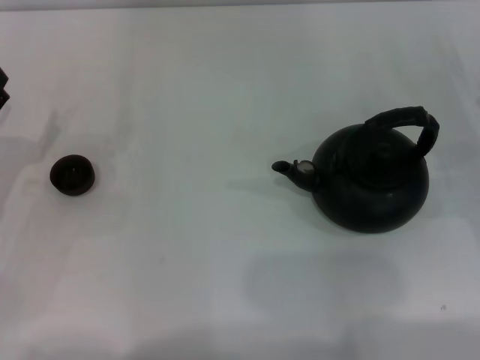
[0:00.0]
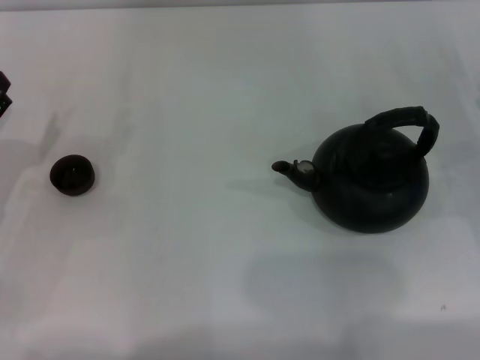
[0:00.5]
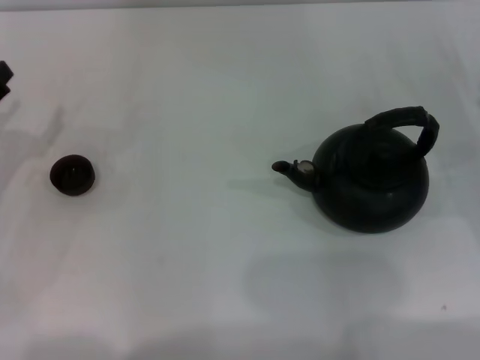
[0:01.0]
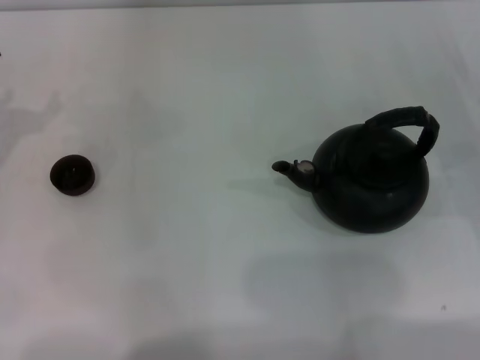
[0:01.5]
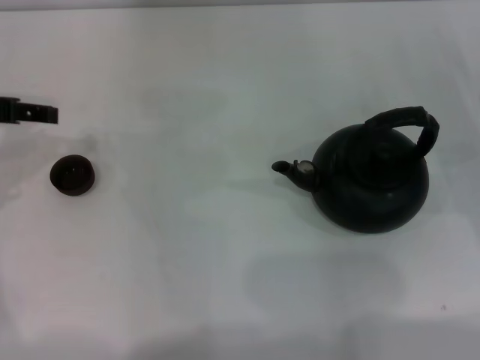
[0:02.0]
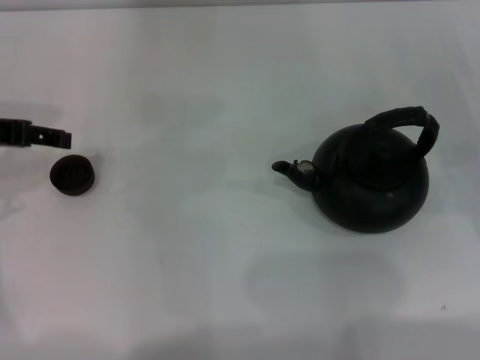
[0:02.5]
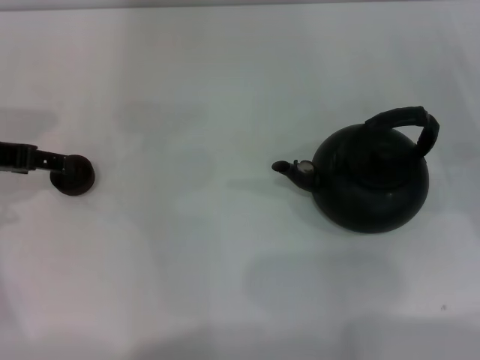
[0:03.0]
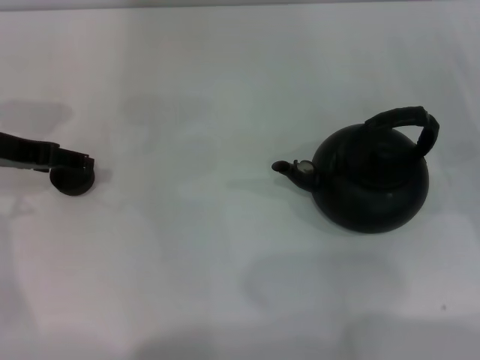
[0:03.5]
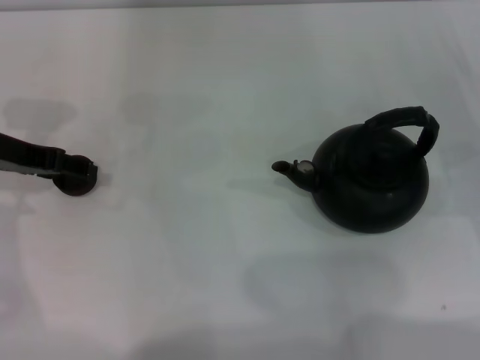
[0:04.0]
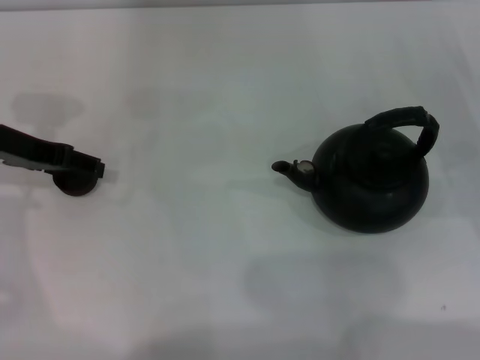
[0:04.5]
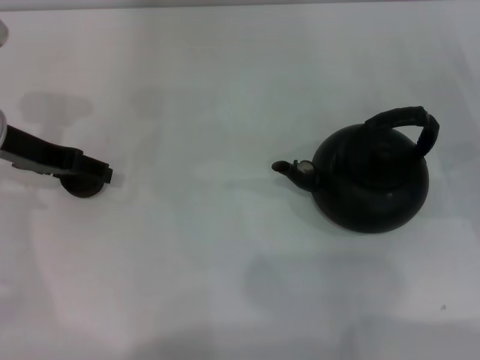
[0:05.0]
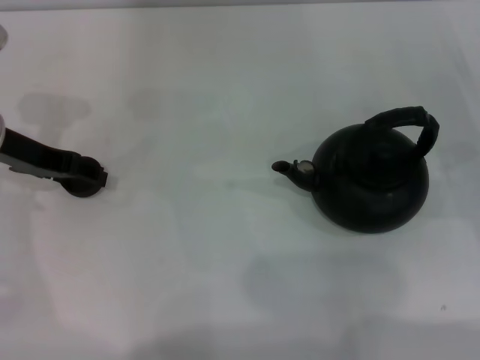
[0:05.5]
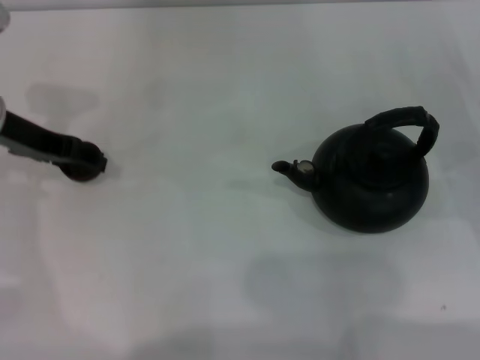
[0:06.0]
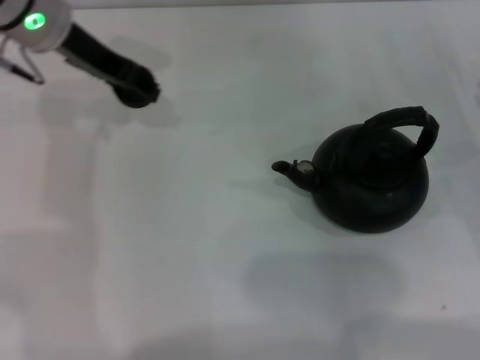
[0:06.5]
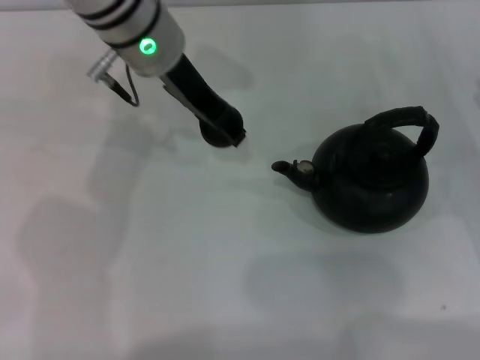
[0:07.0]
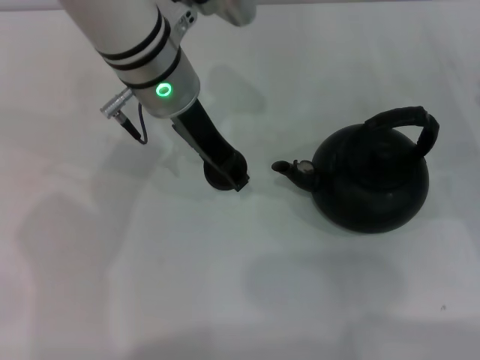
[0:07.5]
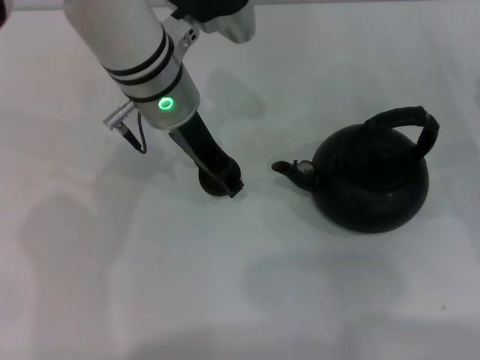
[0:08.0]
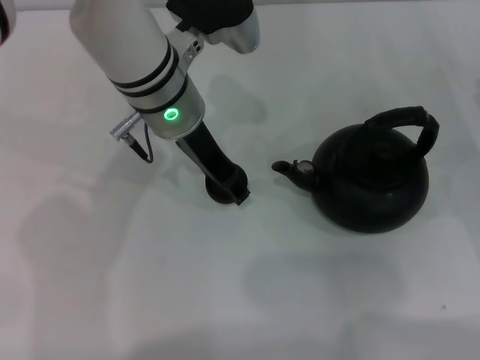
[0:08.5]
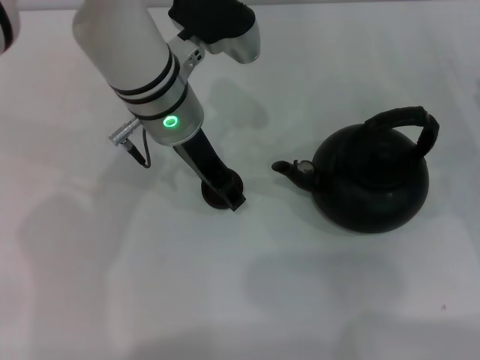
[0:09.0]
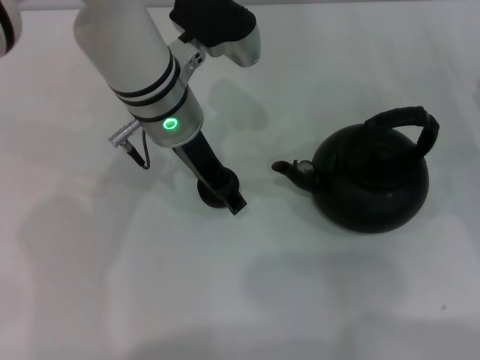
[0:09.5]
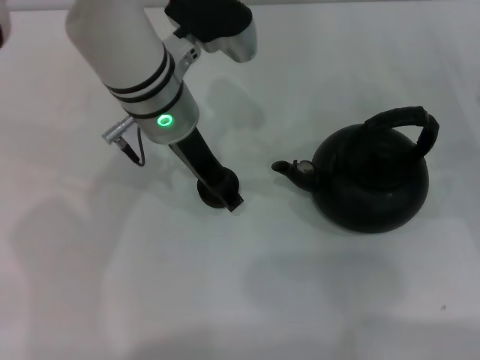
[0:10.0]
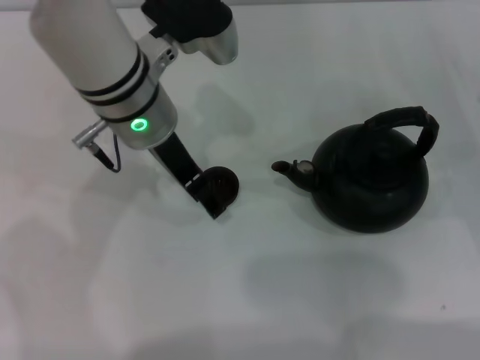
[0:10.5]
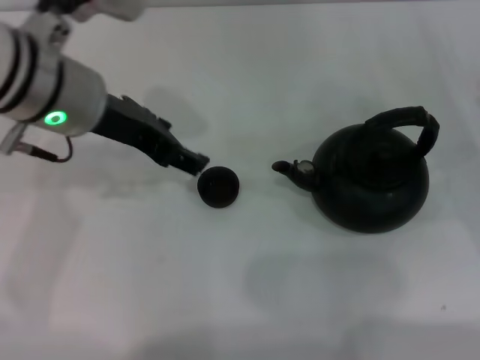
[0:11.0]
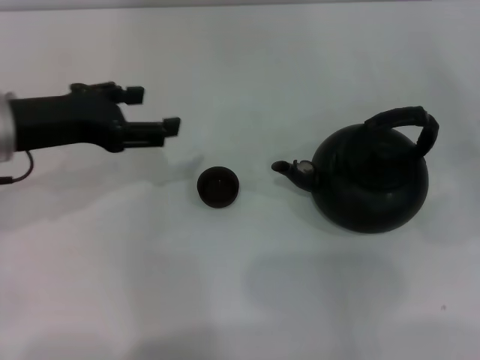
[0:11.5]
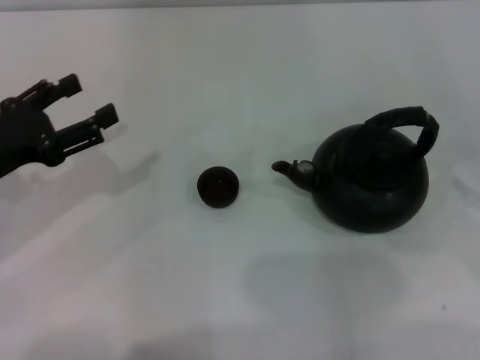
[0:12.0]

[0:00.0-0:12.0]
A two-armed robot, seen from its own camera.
Task of the whole recording: Grasp the handle of the teapot with one hand and pour tea into the teacup.
Step, 0:00.0 to 0:06.0: Pick up the teacup with the left gripper.
Step, 0:06.5 to 0:11.0: Place the teacup in the center of view with the left gripper.
0:00.0 to 0:02.0: The left gripper shifts roughly 15 cm upward and forward.
0:02.0 to 0:04.0: The left gripper ends up approximately 5 cm from where it was.
0:04.0 to 0:06.0: The left gripper closes up.
0:06.0 to 0:08.0: The left gripper shifts some 20 cm to the right.
0:08.0 to 0:10.0: The left gripper opens its fingers.
0:10.0 to 0:12.0: The left gripper travels to the left and backward by about 25 cm, while the right gripper moves upward and backward, roughly 10 cm.

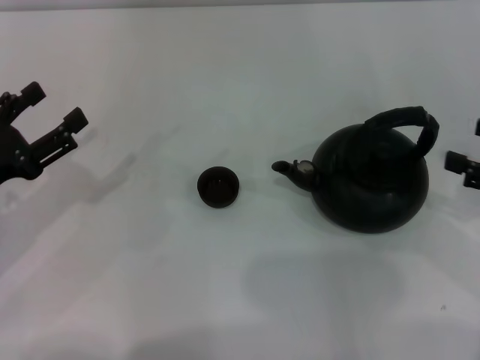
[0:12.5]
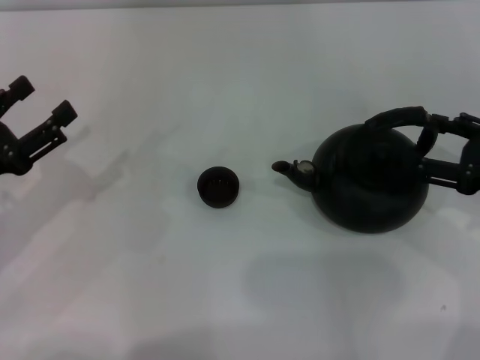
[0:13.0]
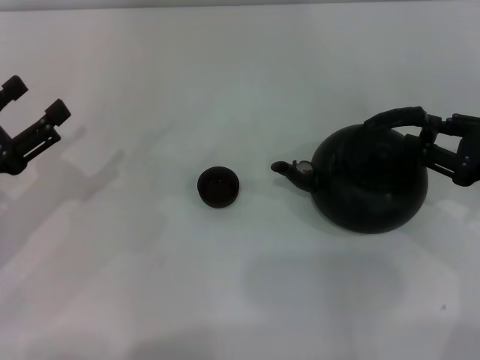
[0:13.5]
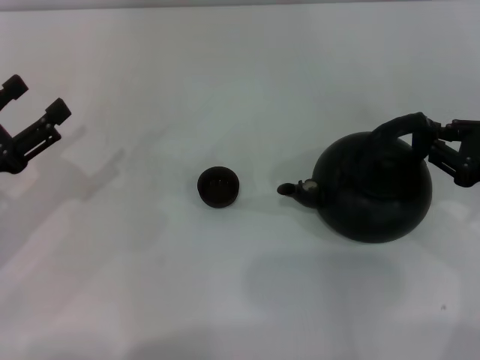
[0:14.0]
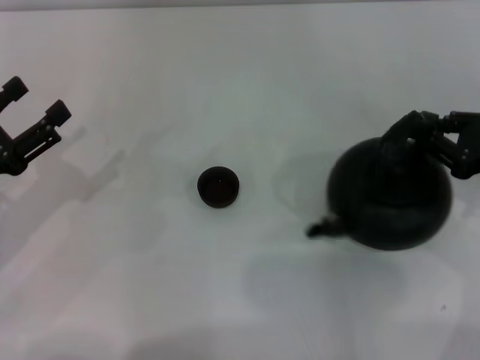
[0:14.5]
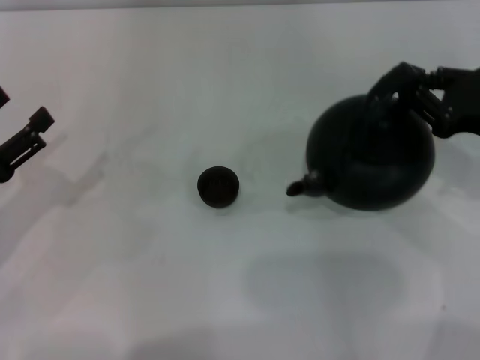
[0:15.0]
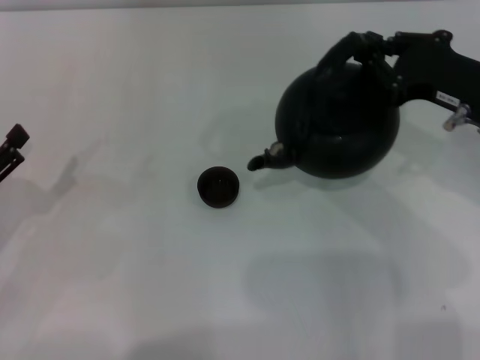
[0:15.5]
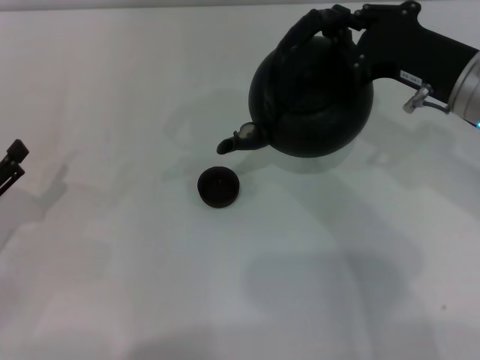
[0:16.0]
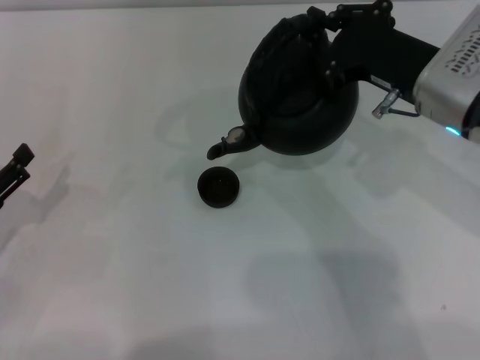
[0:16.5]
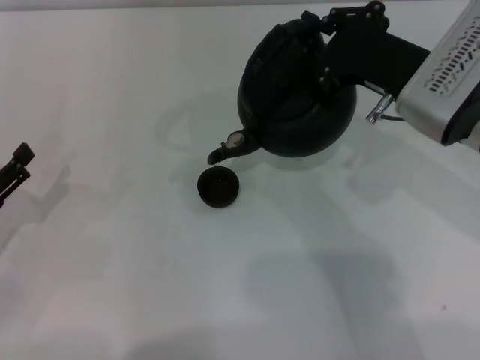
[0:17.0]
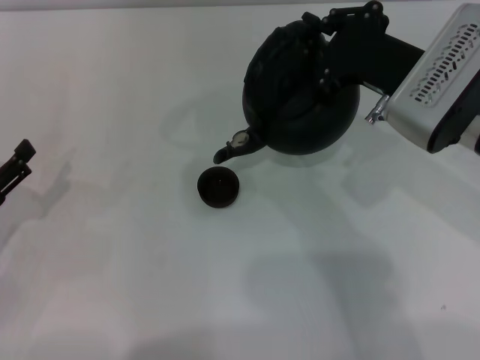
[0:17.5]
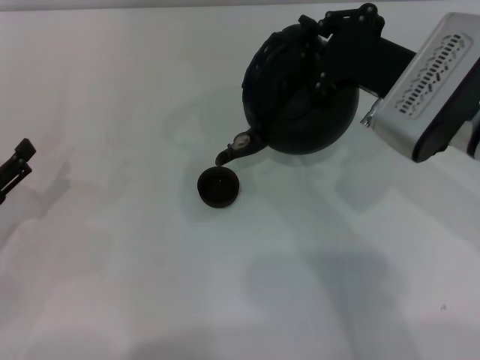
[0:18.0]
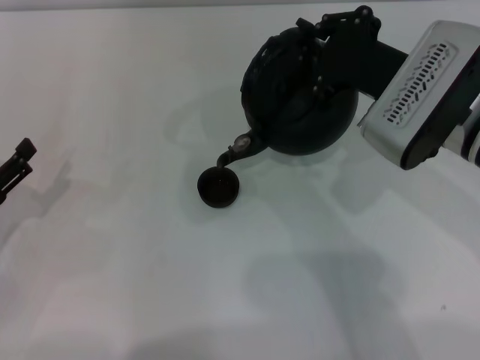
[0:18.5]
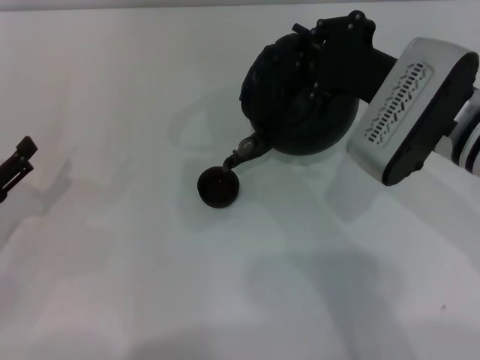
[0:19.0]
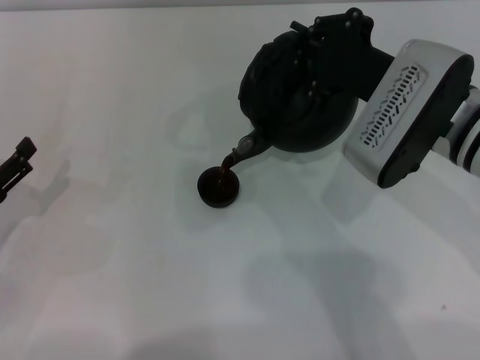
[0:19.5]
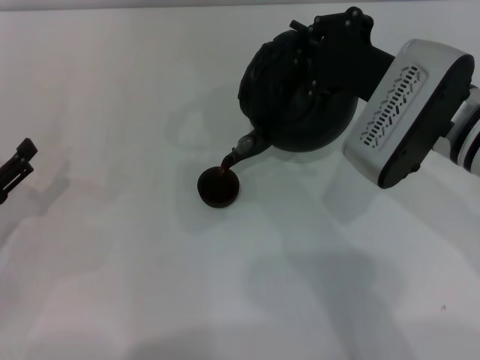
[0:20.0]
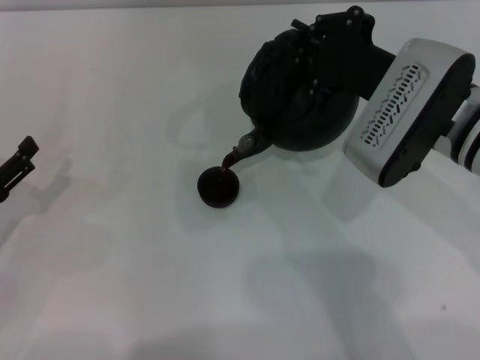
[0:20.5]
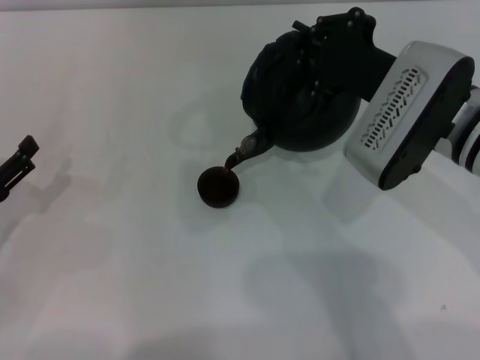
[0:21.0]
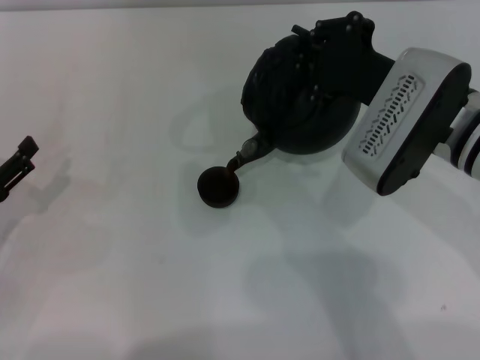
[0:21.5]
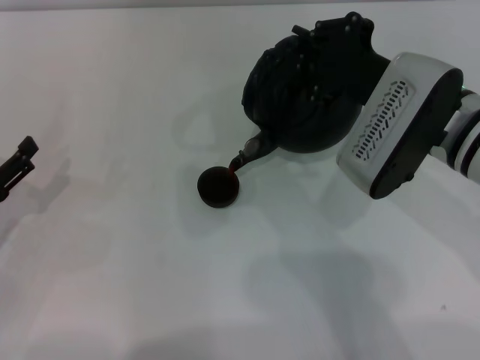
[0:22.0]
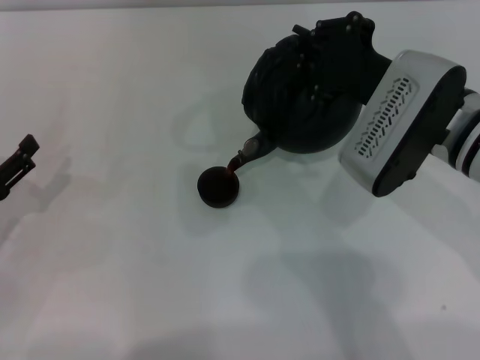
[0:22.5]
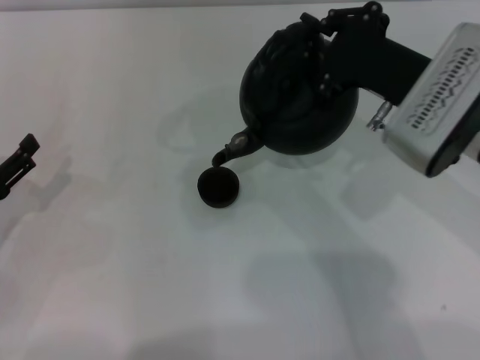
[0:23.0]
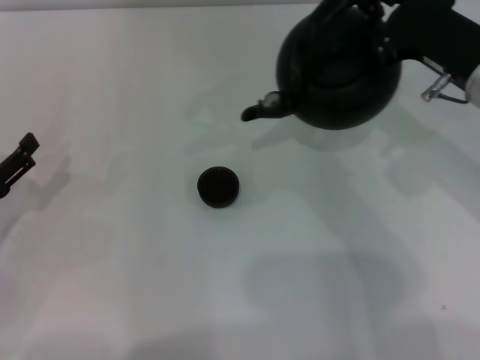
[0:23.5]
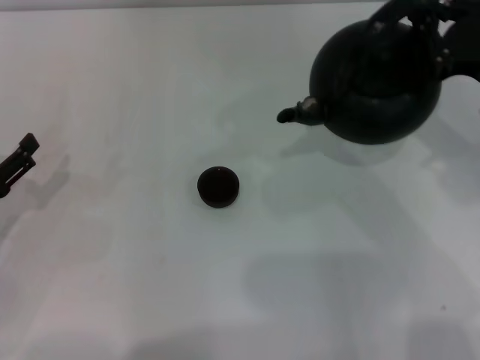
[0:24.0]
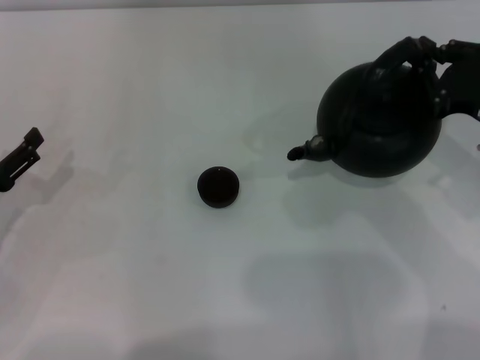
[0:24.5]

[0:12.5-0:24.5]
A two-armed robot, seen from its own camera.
Task of the whole recording: Grasp the handle of the teapot with one hand and pour tea into the teacup.
Step, 0:12.5 to 0:15.0: Pick up the teapot with the right gripper.
Step, 0:15.5 to 0:23.0: Pour tea into the teacup with the right gripper.
0:12.5 to 0:14.5: The right gripper shifts by roughly 5 cm, and closes.
0:14.5 to 0:16.5: The left gripper shifts by roughly 5 cm. Meanwhile the right gripper moves to the left, some 15 cm.
0:16.5 to 0:18.5: The grippers make only small movements.
0:18.5 to 0:20.5: The grippers make only small movements.
0:20.5 to 0:22.5: Both grippers stay put.
0:22.5 to 0:24.5: The right gripper is displaced to the right by about 10 cm.

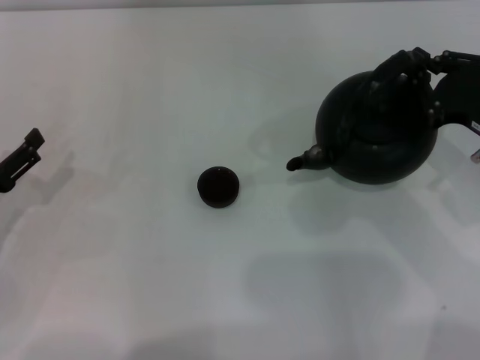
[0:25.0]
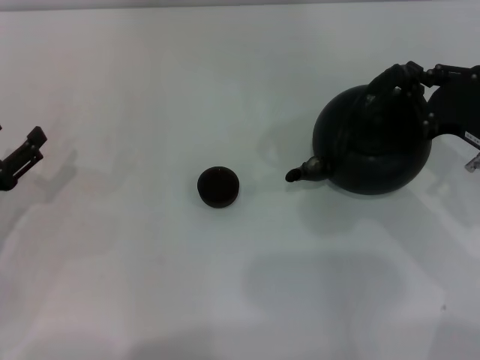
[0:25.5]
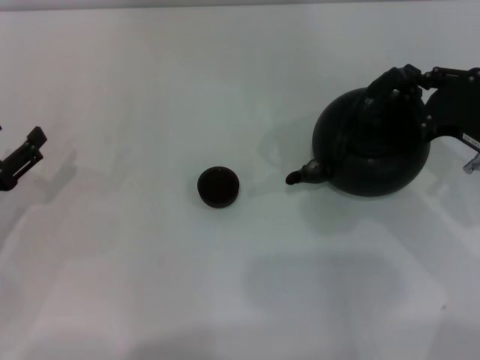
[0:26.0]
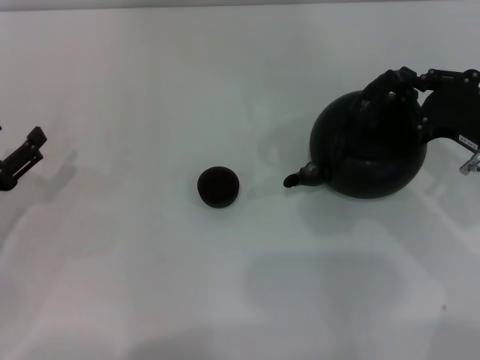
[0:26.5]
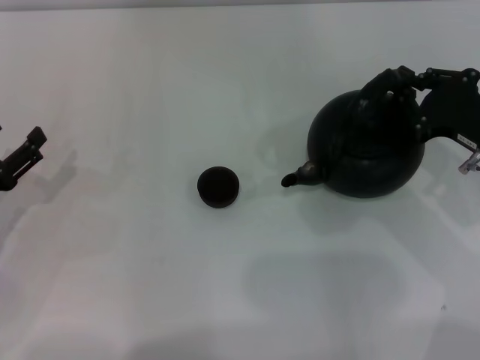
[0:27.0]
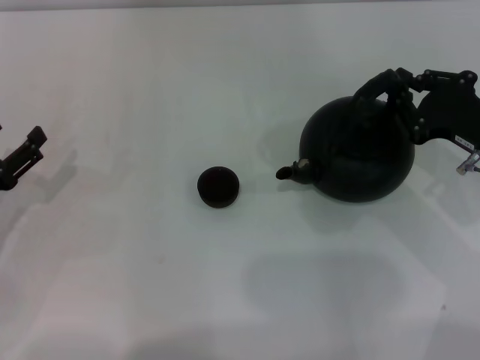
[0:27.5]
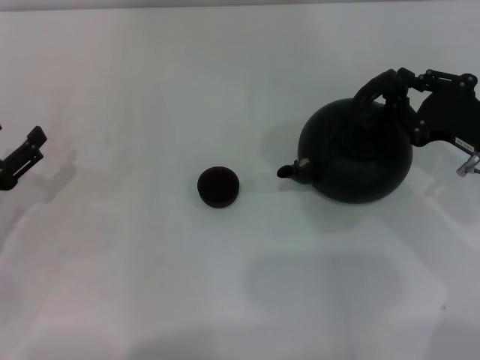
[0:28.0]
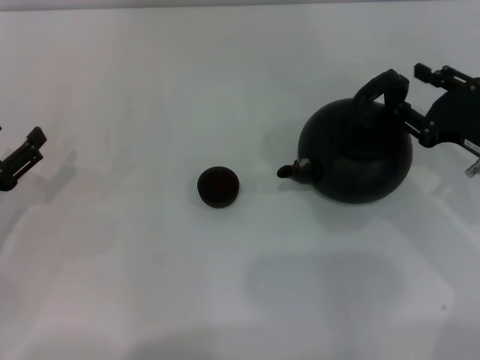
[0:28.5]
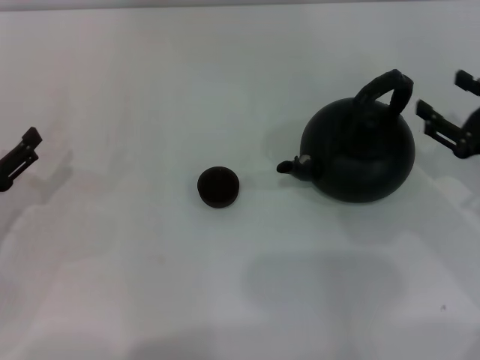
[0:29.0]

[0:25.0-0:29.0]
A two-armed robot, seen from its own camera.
Task of the whole recording: Grasp the handle of the teapot with one hand and pour tea into the teacup.
Step, 0:25.0 to 0:28.5: Put down the teapot with the right gripper.
0:25.0 to 0:27.0: The grippers make only small movements.
0:27.0 to 0:29.0: The right gripper opens up.
